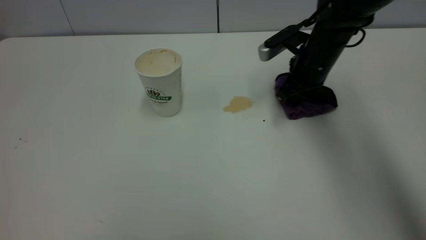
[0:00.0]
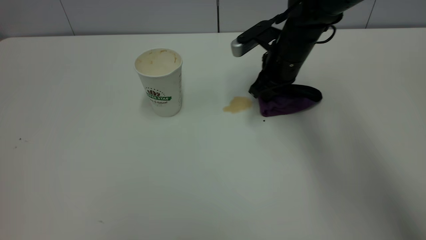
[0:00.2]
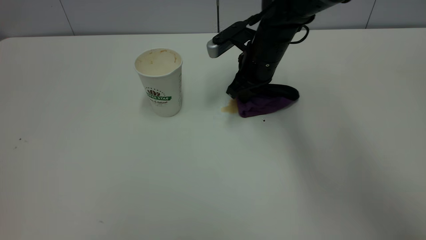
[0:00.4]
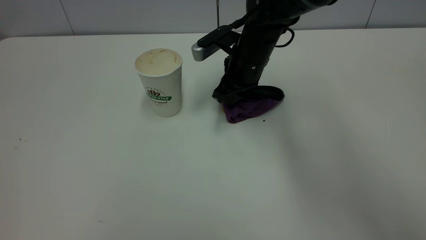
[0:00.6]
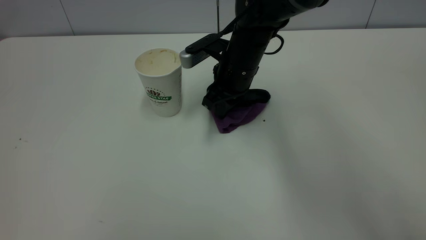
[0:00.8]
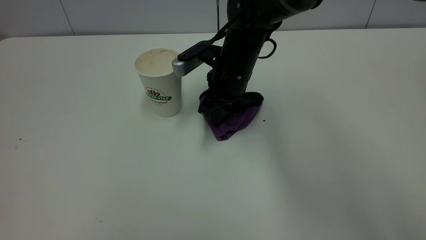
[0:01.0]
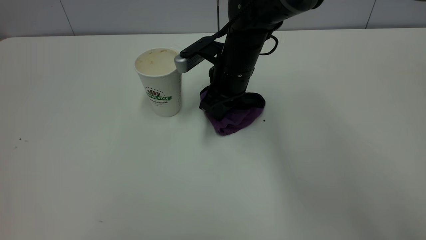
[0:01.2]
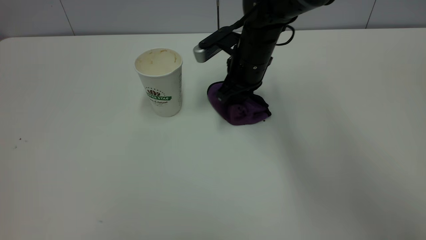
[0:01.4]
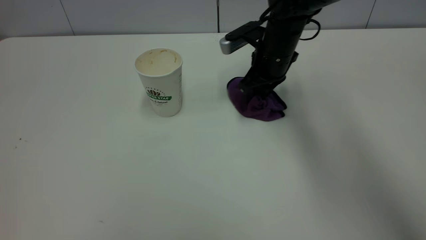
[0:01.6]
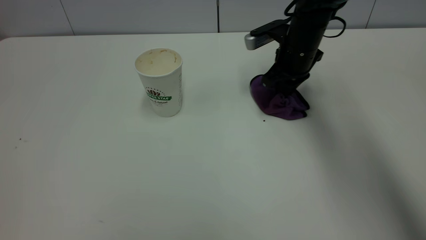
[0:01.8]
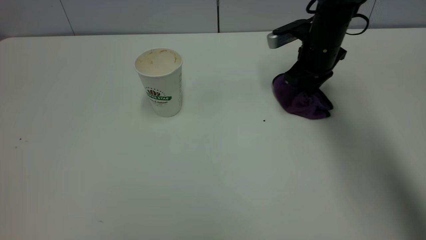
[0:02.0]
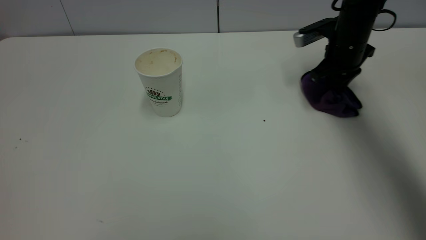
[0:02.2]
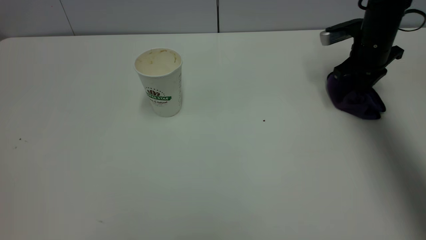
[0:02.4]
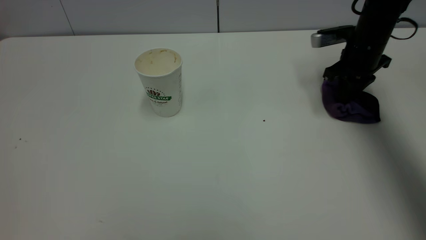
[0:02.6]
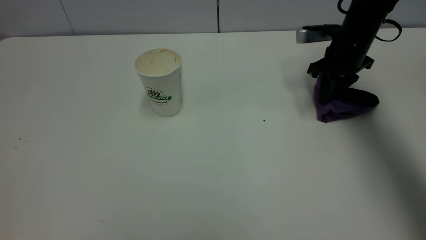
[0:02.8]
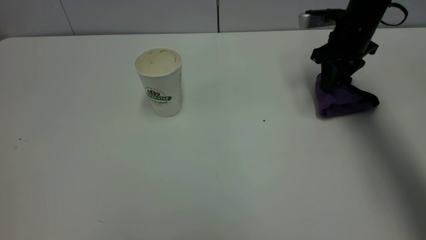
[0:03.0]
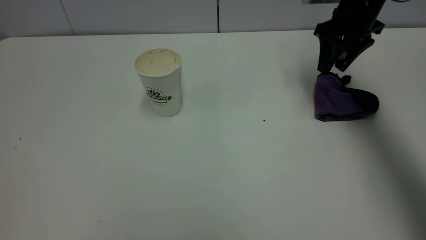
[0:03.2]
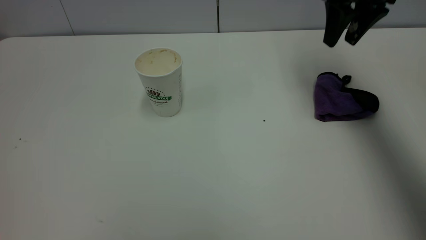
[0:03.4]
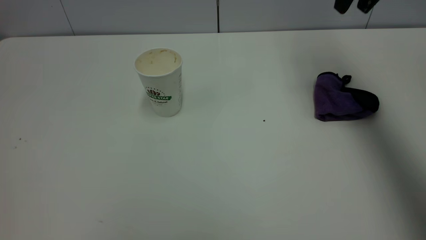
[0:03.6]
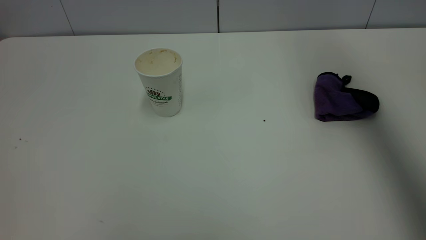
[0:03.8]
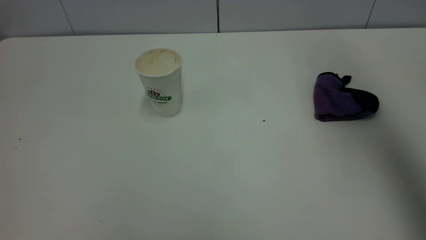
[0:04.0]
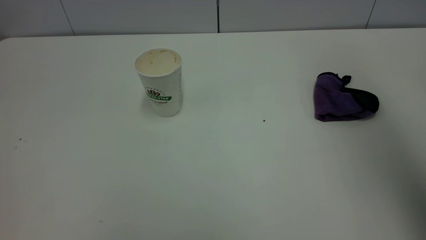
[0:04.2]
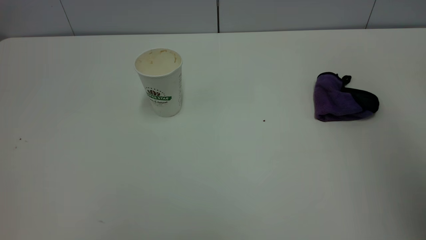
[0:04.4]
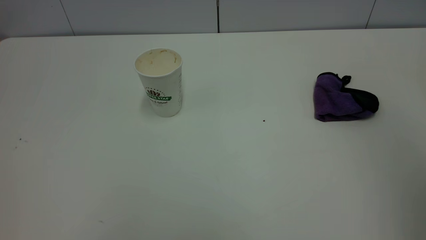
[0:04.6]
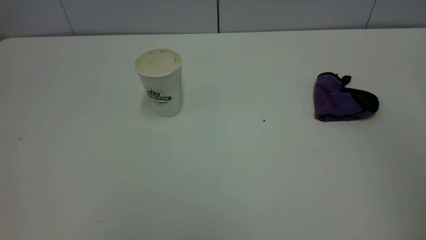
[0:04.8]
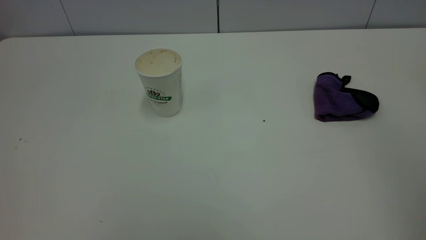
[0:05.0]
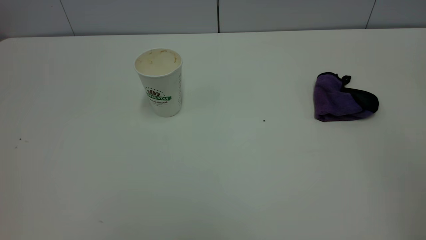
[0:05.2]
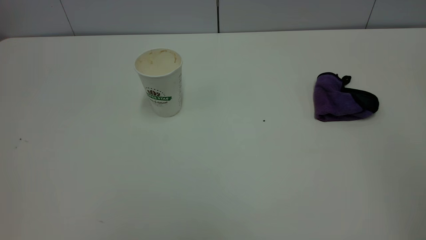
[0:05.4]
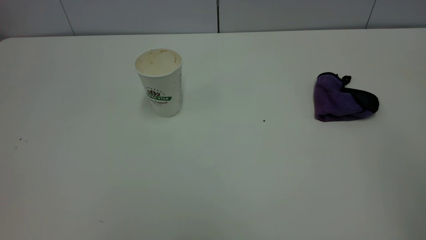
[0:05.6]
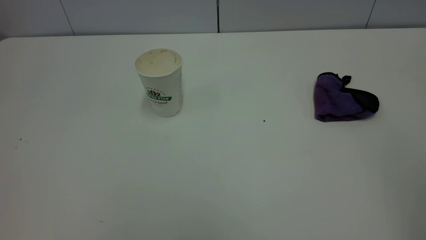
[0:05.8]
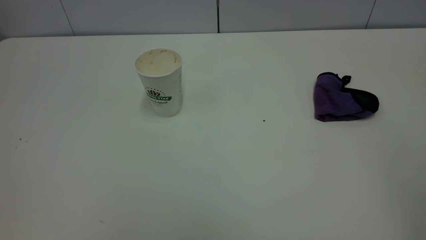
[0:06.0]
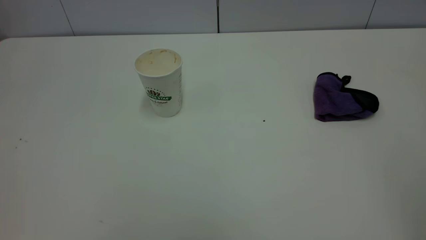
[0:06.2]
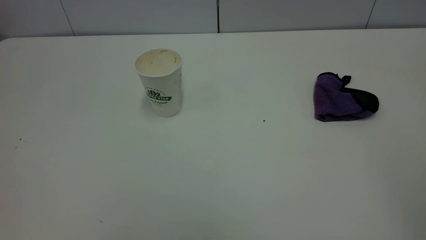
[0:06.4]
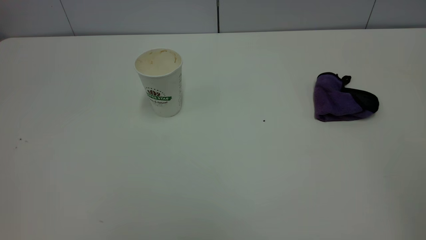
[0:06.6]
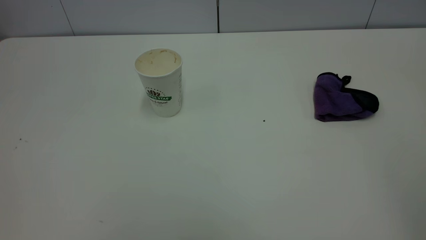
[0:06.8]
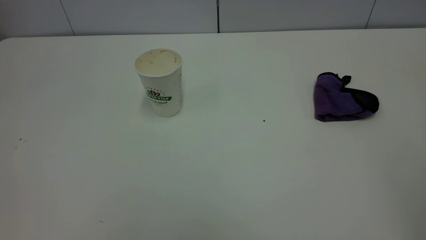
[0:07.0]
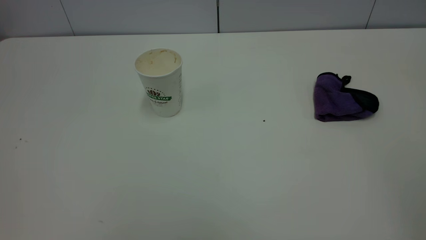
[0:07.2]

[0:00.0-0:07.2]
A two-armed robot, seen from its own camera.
Task of the whole recording: the left gripper pick up the fallen cup and place it upright, the right gripper grasp the purple rag and wipe the tea stain on the table, the right gripper put the purple rag back in its original position.
Step, 0:00.0 to 0:03.4: Wipe the stains off the table with a rag.
0:00.0 to 0:01.4: The right gripper moves to the left, about 10 cm.
0:01.4 to 0:02.8: The right gripper moves to the right, approximately 15 cm.
0:02.8 to 0:04.4: The right gripper moves upward and backward, roughly 40 cm, and opens up.
